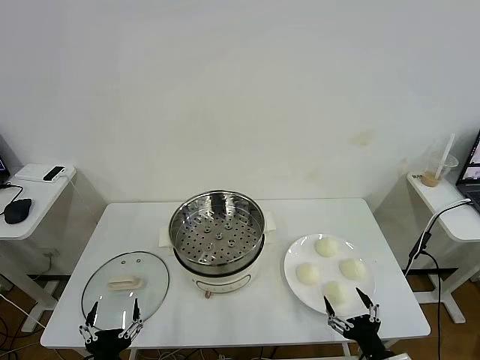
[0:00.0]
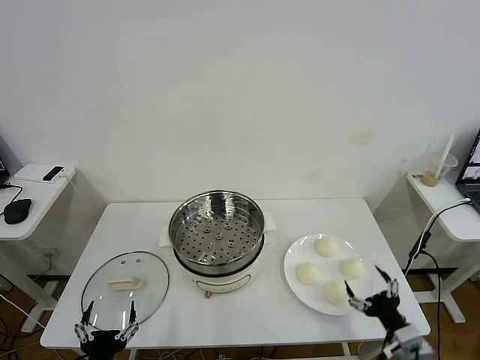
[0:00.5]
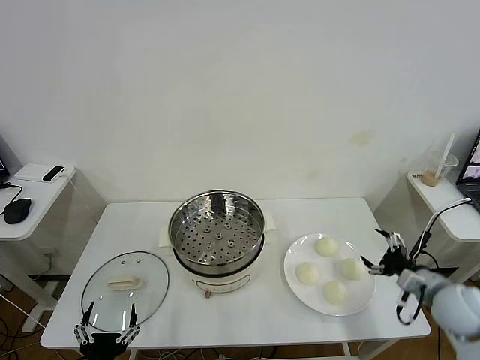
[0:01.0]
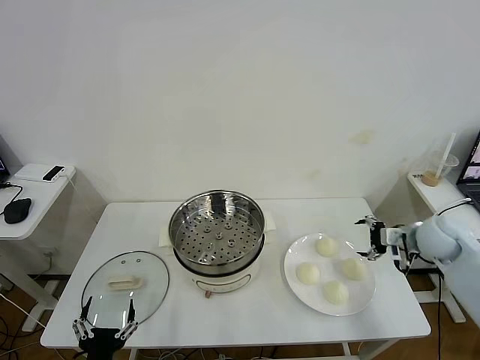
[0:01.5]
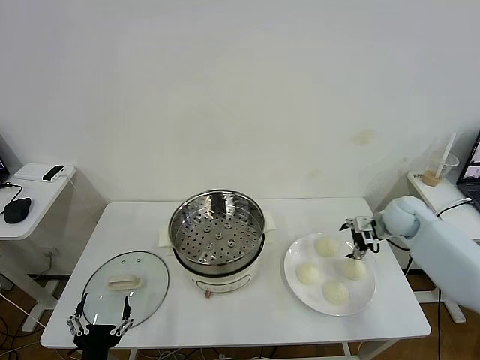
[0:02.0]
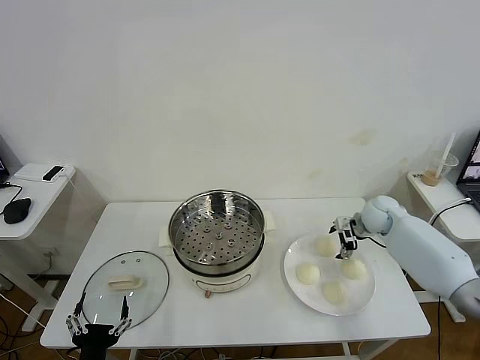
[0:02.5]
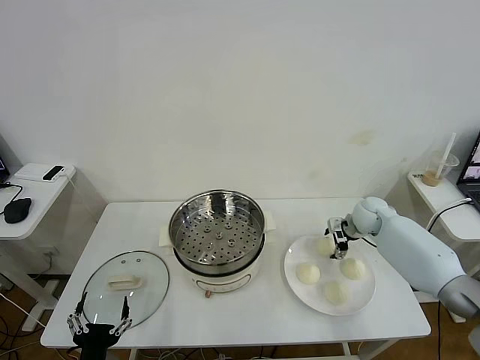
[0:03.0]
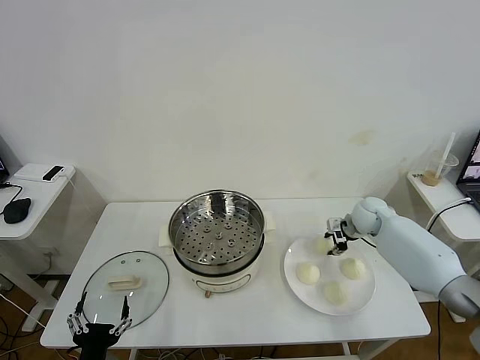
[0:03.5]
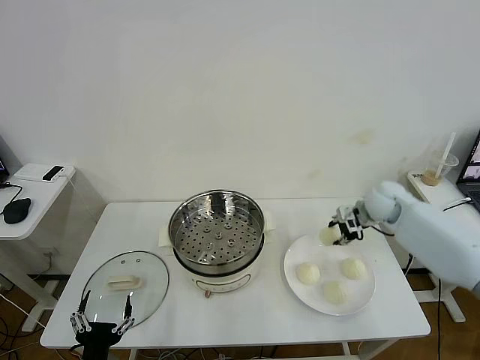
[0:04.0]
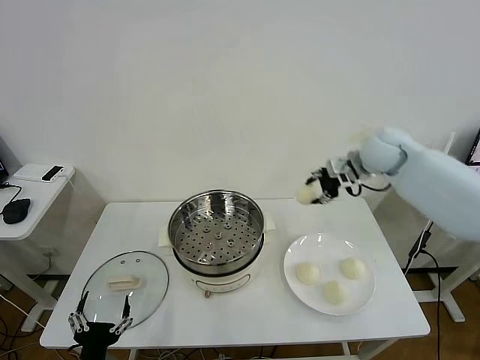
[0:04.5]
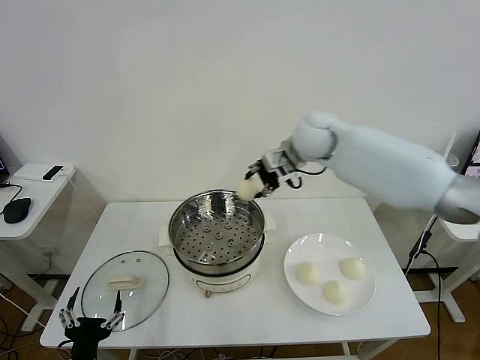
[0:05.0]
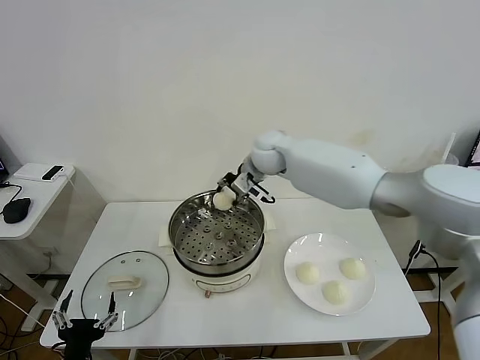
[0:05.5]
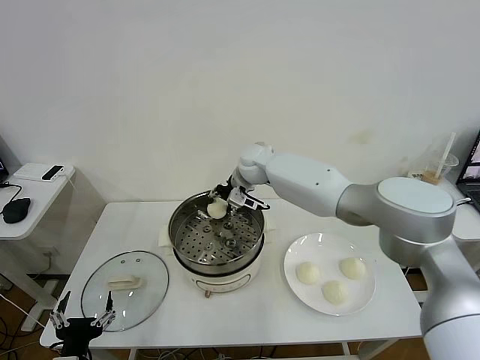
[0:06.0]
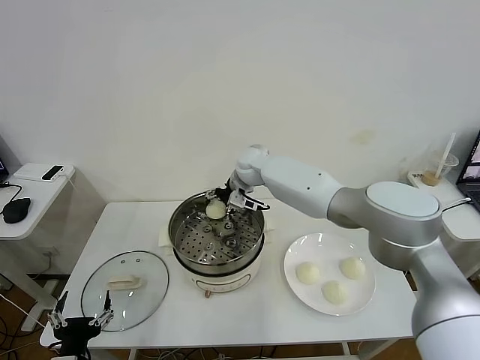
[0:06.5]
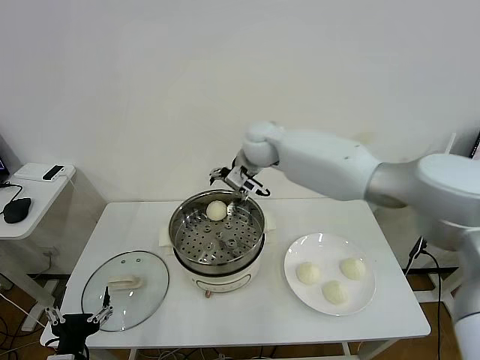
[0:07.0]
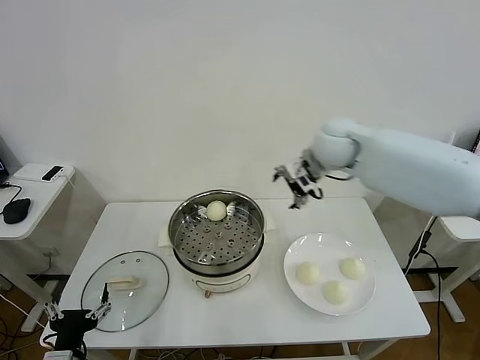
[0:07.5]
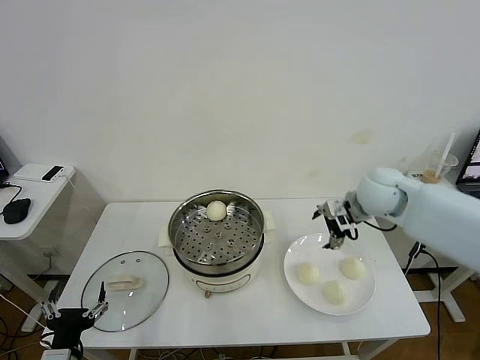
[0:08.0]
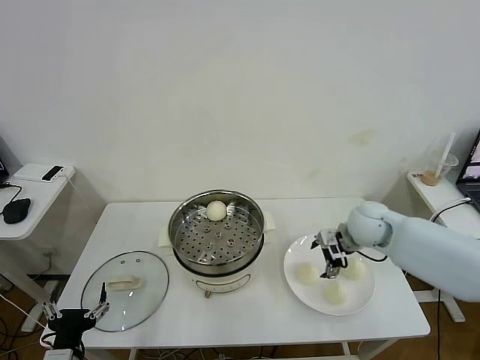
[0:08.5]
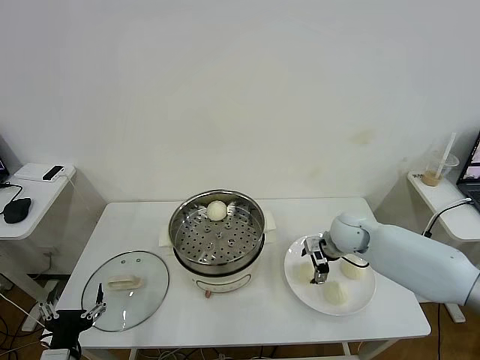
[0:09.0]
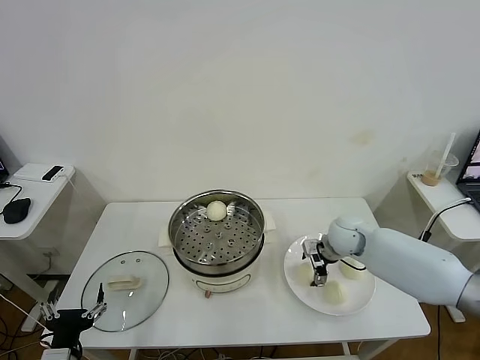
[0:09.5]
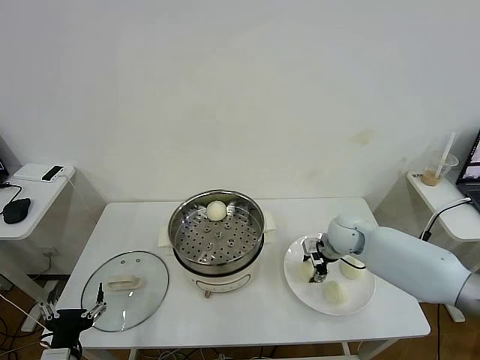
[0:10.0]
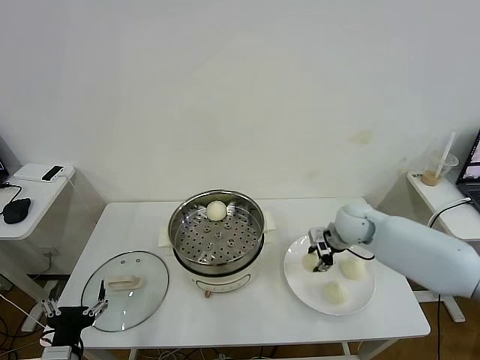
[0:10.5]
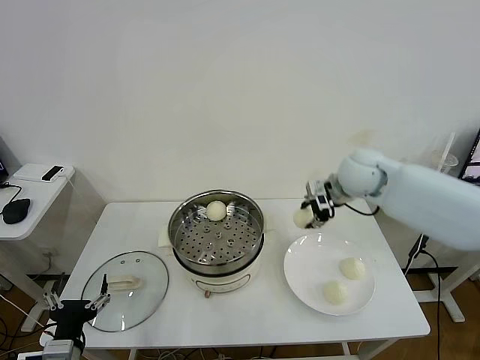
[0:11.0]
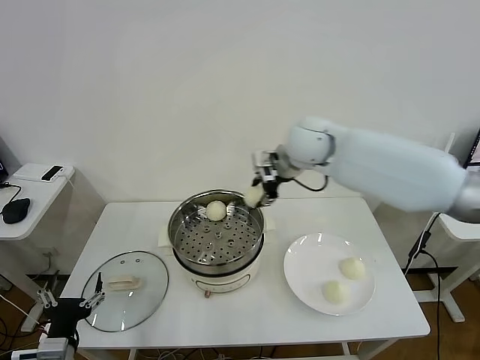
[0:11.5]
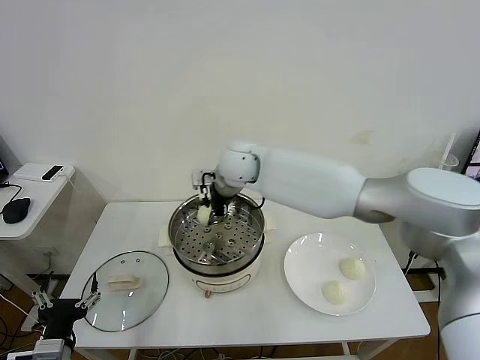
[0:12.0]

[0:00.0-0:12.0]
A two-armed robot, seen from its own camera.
Task of the whole recording: take steamed baozi put them in steamer then cover it.
Step, 0.0 to 3.0 s: Grasp the baozi in the plate with right gripper.
Step, 3.5 to 6.5 s: Place the baozi on the steamer with right gripper.
Step, 7.0 to 10.0 s: Grasp the baozi in the plate with right gripper.
2.0 to 4.0 s: The right gripper shifts some 5 cm upward, and closes up.
4.0 to 6.0 s: The right gripper moves to the left, about 30 cm.
6.0 to 8.0 s: The right gripper goes roughly 30 cm to the right and backward, and opens its fingers.
8.0 to 10.0 s: The right gripper shifts approximately 15 cm downward, and closes.
10.0 to 12.0 s: The right gripper is displaced to the left and upward by approximately 35 cm.

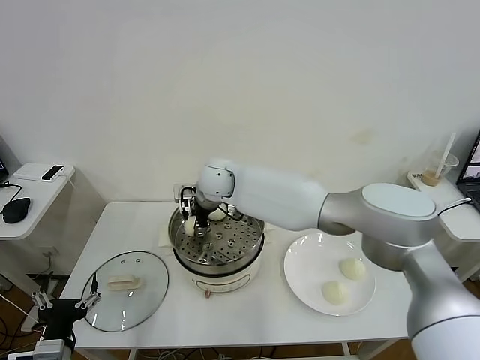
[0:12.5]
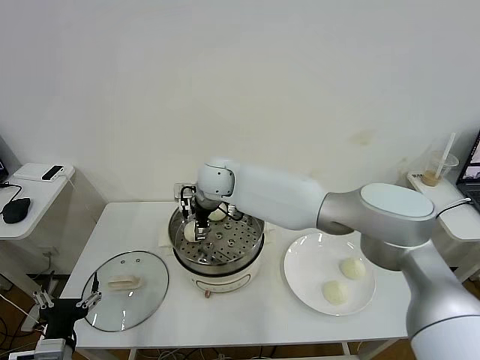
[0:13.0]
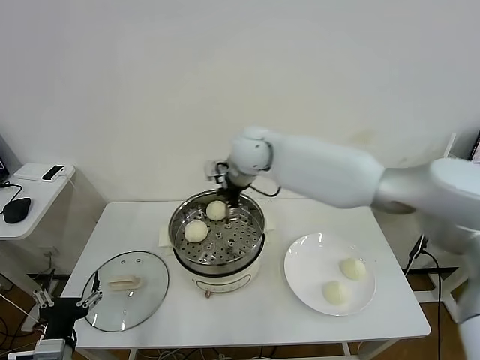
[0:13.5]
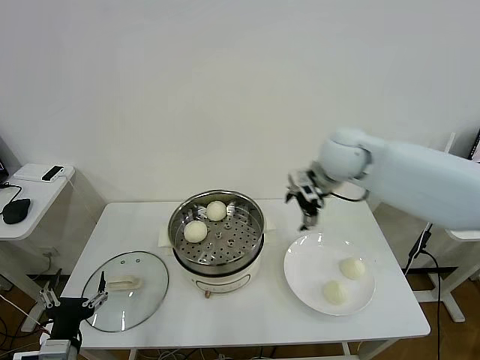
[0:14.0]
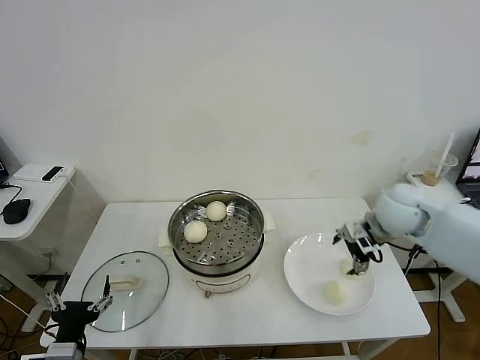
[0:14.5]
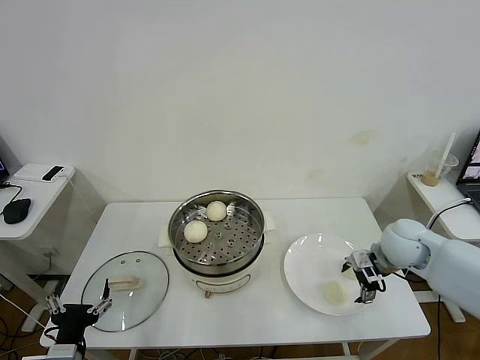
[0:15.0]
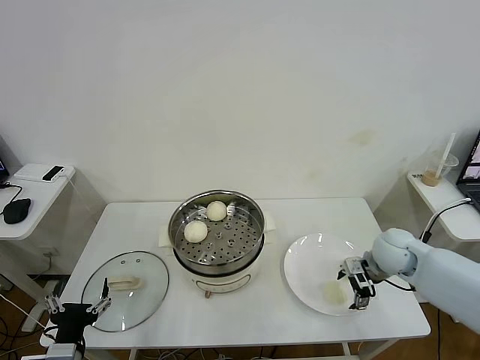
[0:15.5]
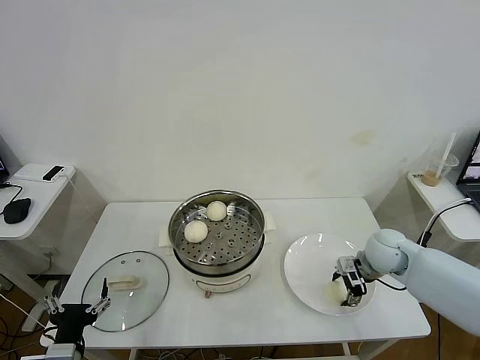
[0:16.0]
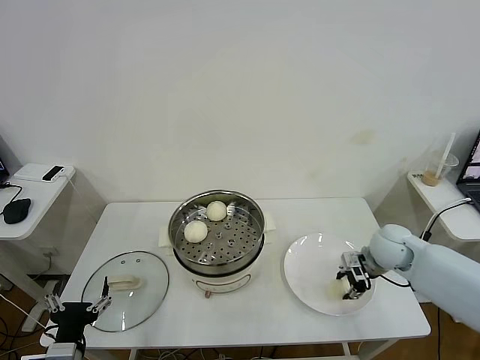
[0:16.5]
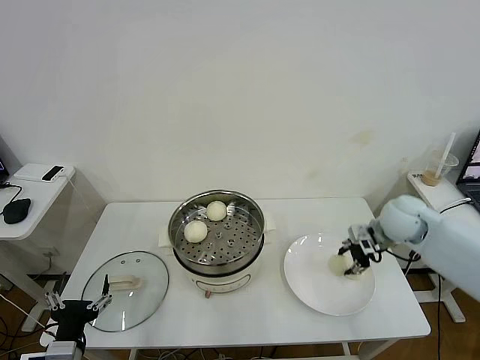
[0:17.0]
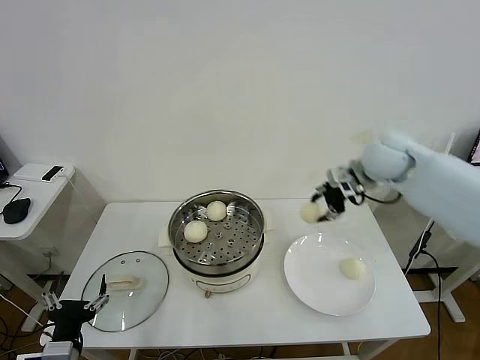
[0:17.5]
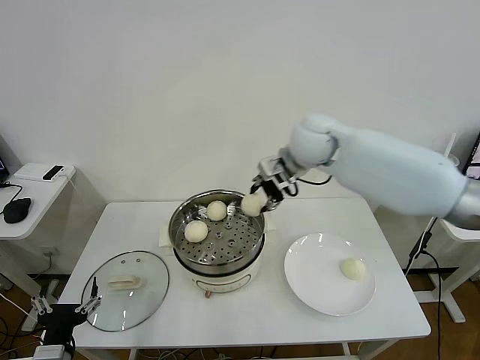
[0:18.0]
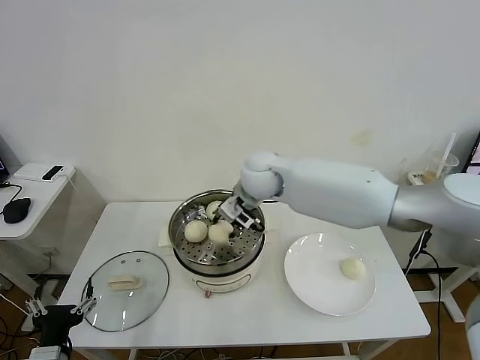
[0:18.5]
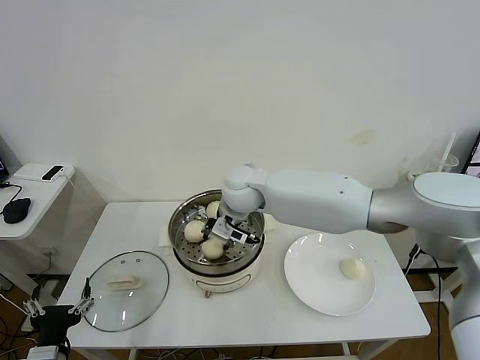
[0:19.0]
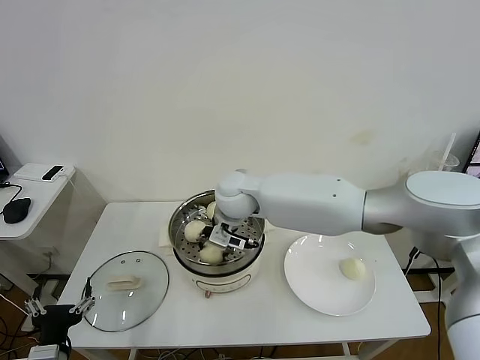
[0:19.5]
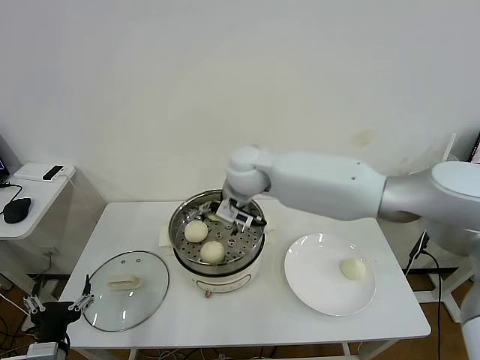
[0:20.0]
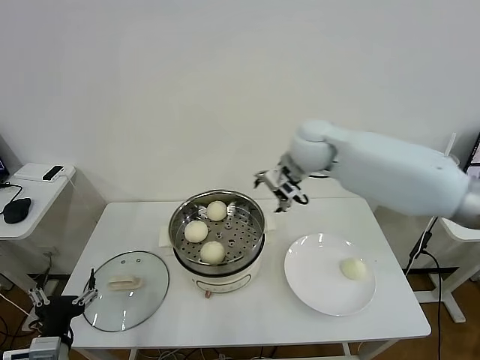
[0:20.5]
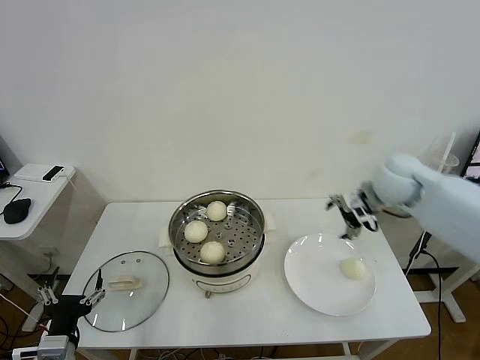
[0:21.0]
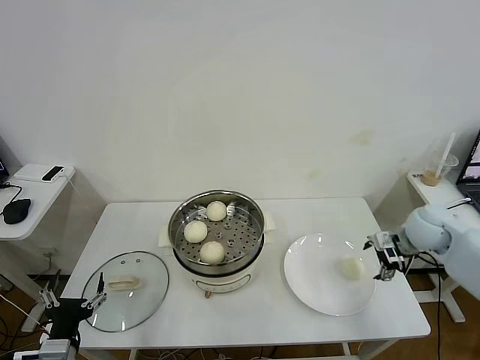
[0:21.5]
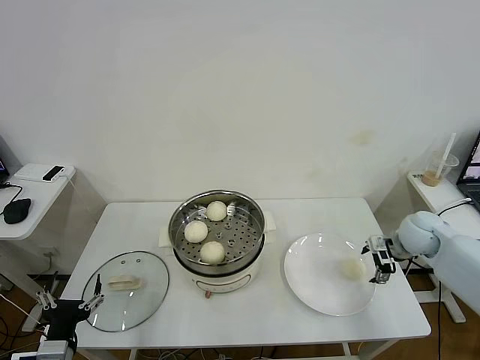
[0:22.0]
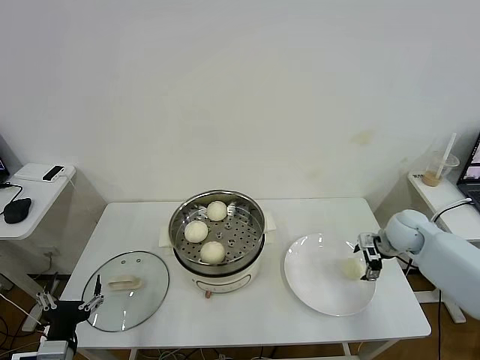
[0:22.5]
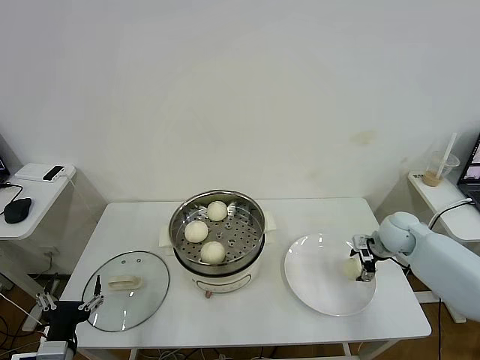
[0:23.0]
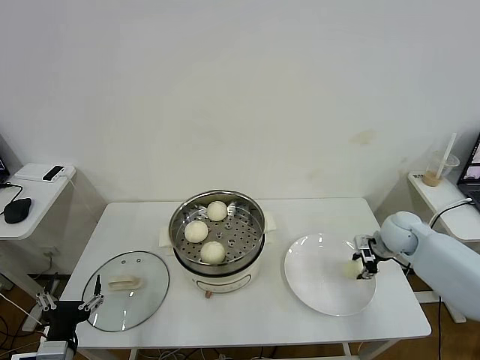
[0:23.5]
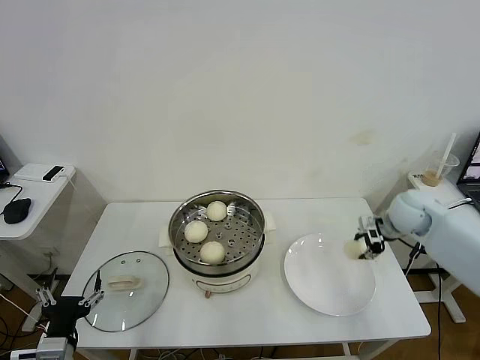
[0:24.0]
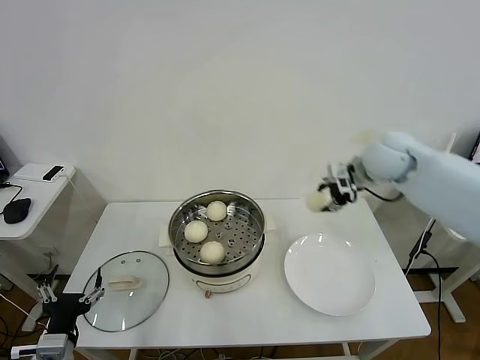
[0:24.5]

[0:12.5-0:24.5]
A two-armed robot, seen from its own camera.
Task of the whole recording: take steamed baozi put them in steamer then cover it.
Step, 13.5 to 16.0 s: Grasp the baozi in the plate with right gripper.
Step, 16.5 to 19.5 s: Place the baozi on the steamer with right gripper.
Step, 20.0 to 23.5 s: Grasp the baozi in the plate with right gripper.
12.5 to 14.5 s: The right gripper heads to the right, covering roughly 40 cm, and opens.
14.5 to 16.5 s: The right gripper goes roughly 10 cm downward, and closes.
16.5 to 18.5 s: The right gripper goes some 35 cm to the left and upward.
18.5 to 20.5 s: The right gripper shifts about 15 cm to the right and upward, and opens.
20.5 to 22.5 s: The right gripper shifts roughly 35 cm to the right and downward.
22.5 to 24.5 s: The right gripper travels upward and to the left by roughly 20 cm, and closes its fingers.

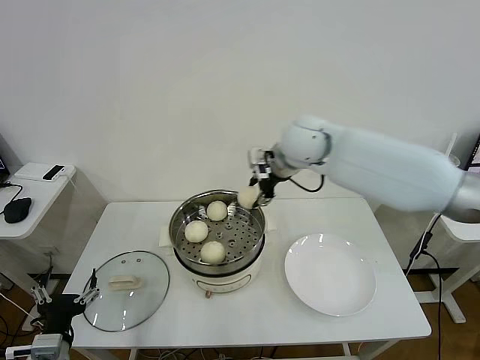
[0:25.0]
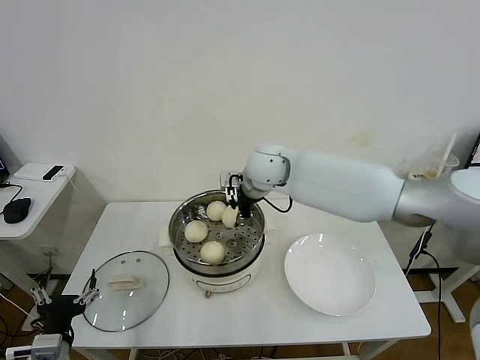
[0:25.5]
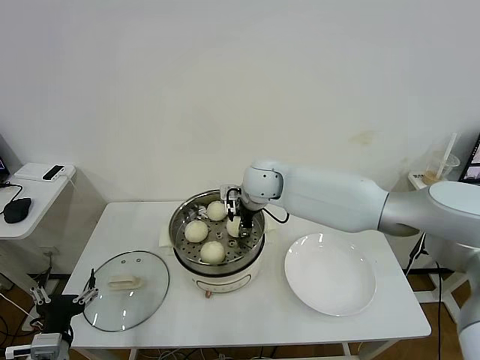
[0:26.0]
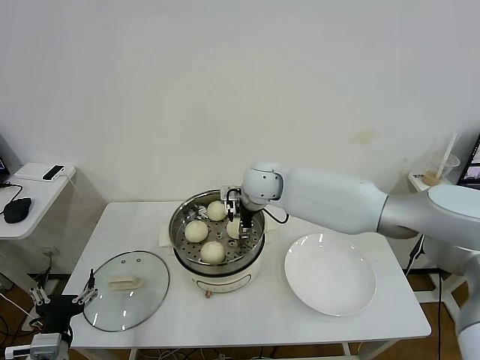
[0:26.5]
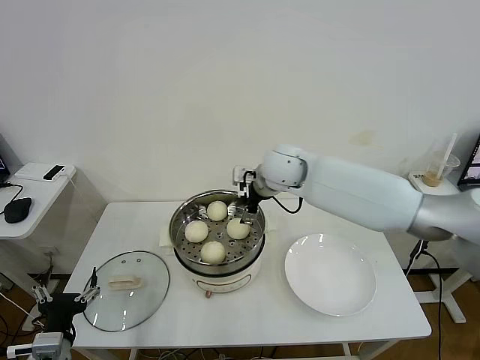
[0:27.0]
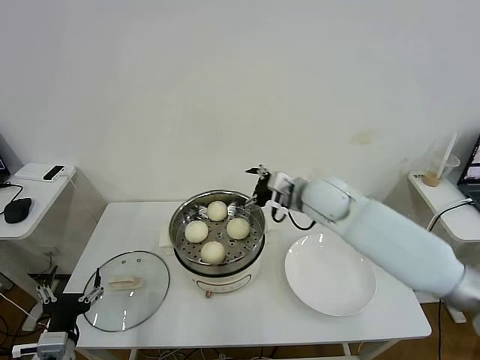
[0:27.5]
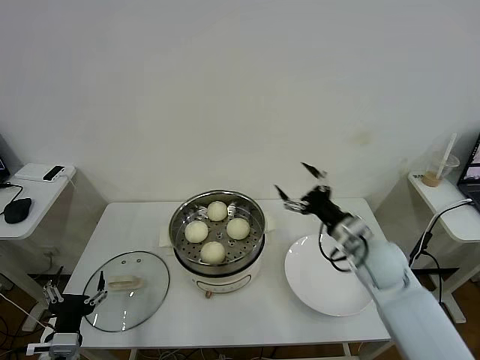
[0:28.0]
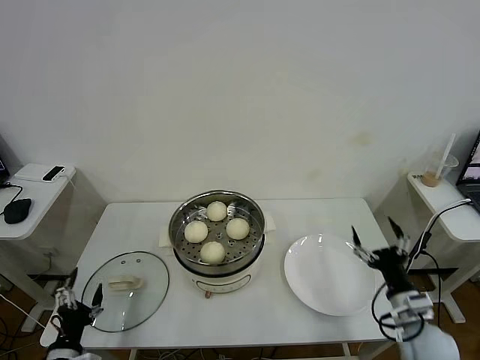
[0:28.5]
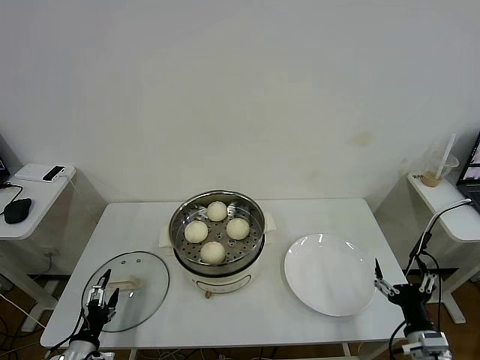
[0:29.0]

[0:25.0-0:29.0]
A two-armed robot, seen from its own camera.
Task of the whole recording: take steamed baozi put them in steamer then cover it.
25.0 to 27.0 s: The right gripper moves downward, about 5 cm, and opens up.
27.0 to 29.0 s: The right gripper heads backward, to the right and downward, covering about 50 cm. The left gripper shifts some 10 cm downward.
